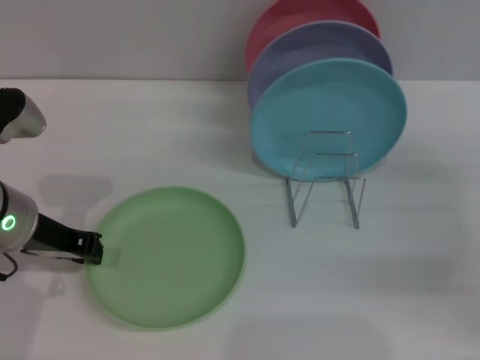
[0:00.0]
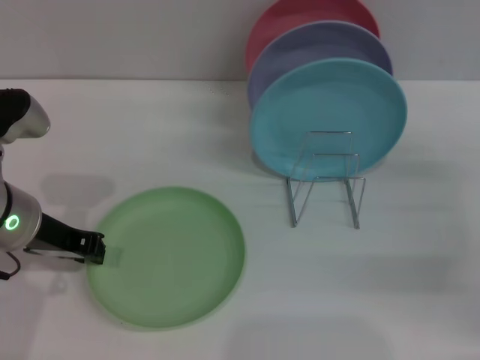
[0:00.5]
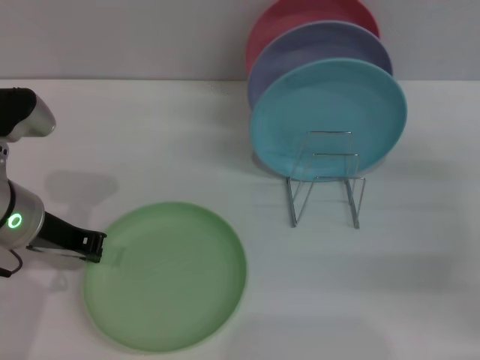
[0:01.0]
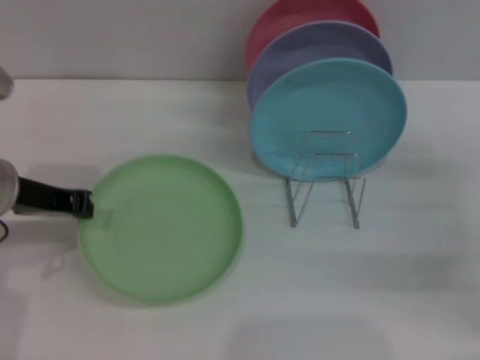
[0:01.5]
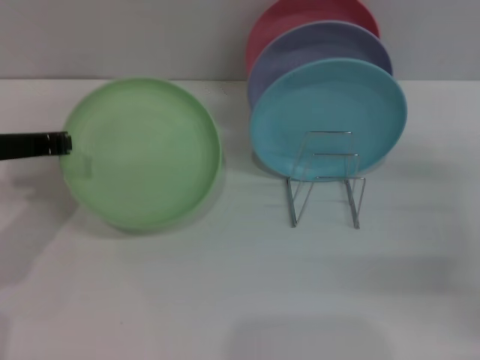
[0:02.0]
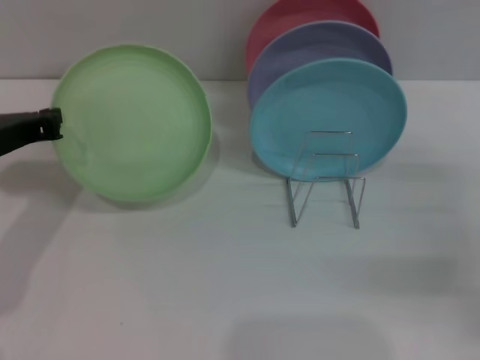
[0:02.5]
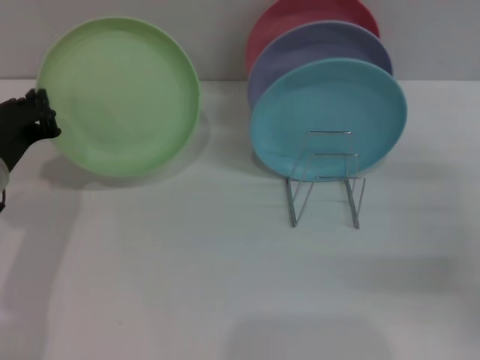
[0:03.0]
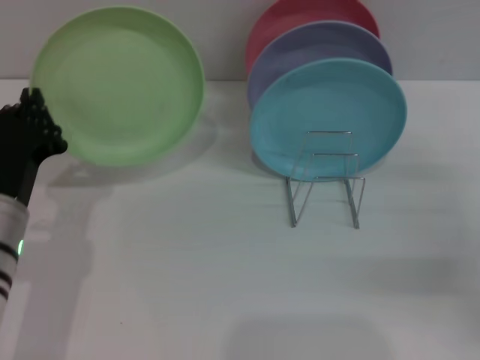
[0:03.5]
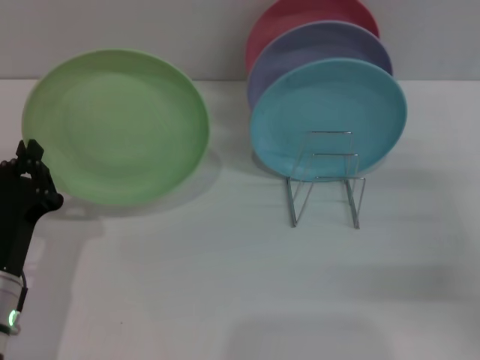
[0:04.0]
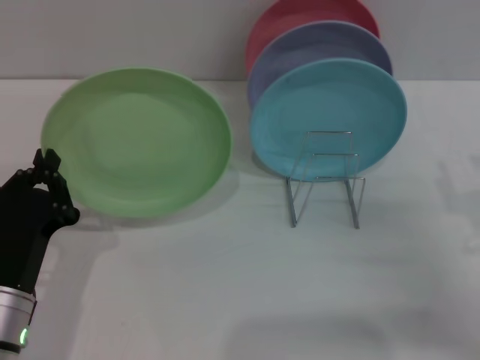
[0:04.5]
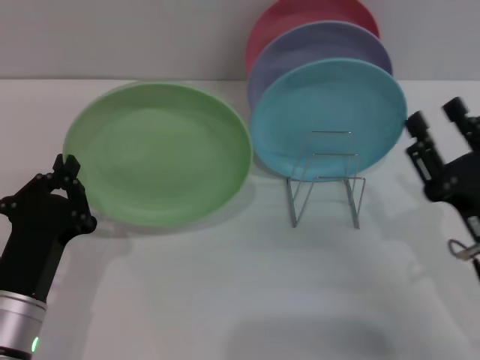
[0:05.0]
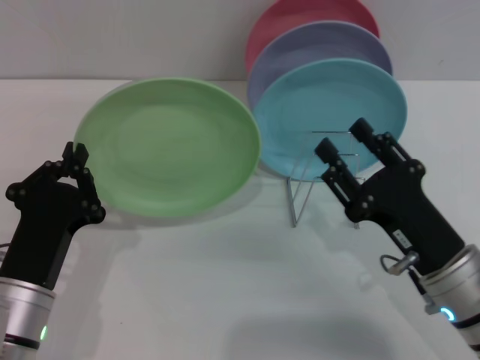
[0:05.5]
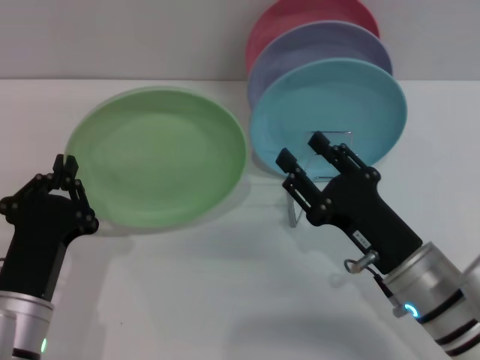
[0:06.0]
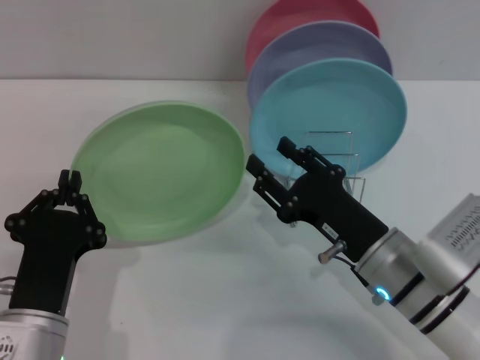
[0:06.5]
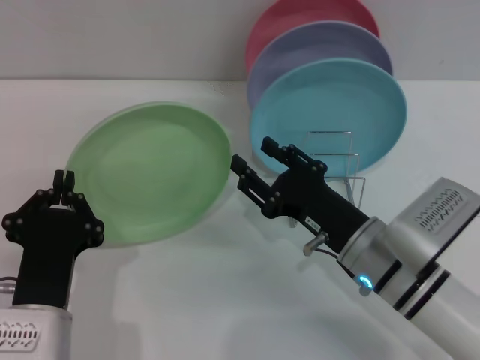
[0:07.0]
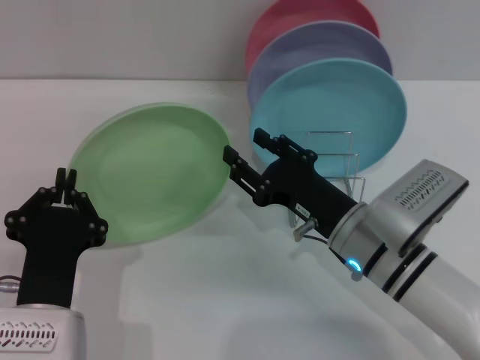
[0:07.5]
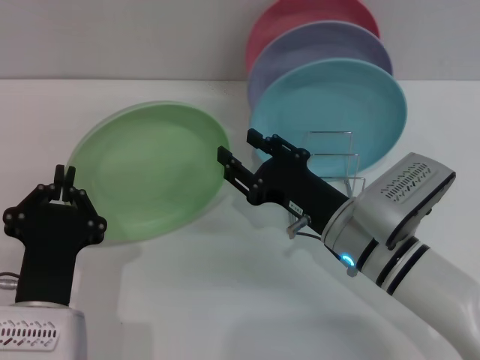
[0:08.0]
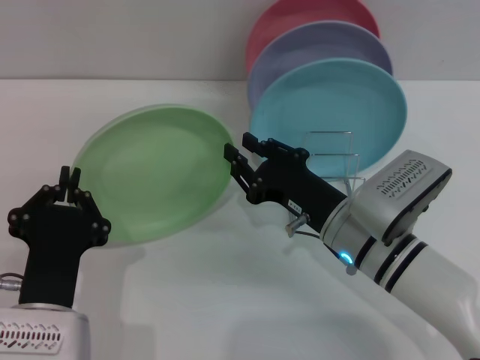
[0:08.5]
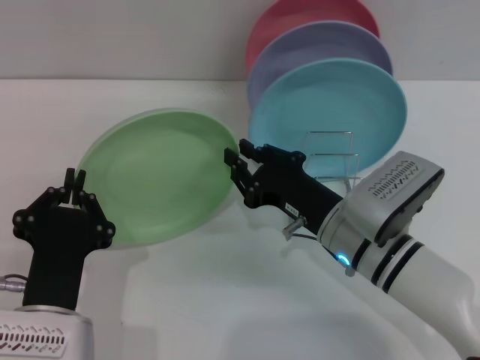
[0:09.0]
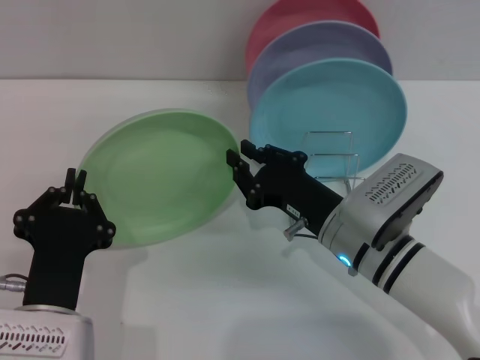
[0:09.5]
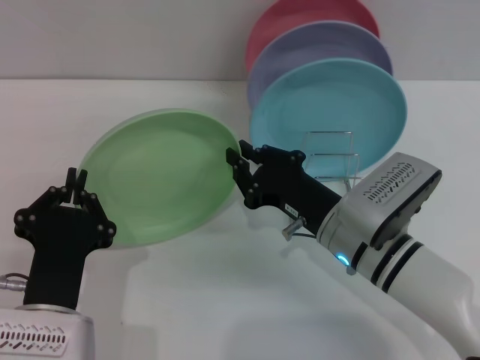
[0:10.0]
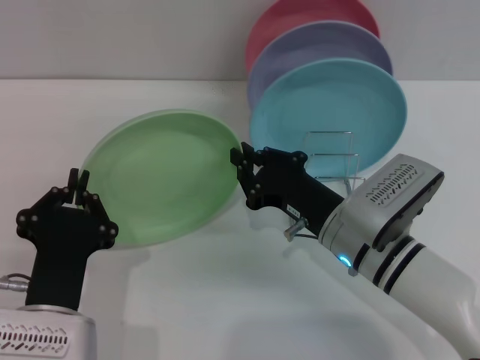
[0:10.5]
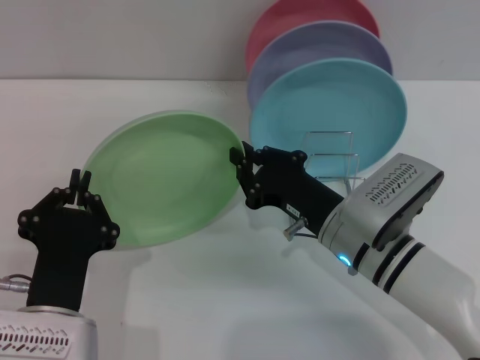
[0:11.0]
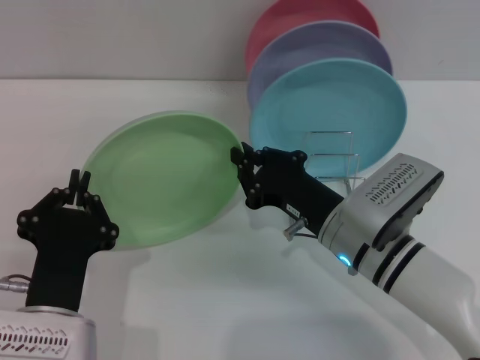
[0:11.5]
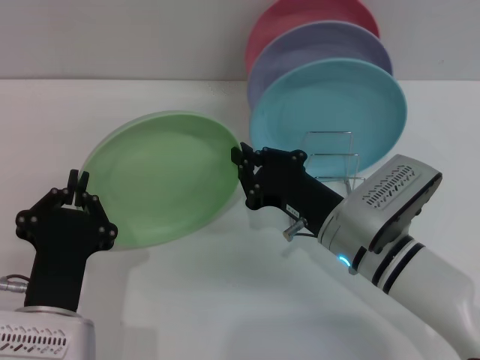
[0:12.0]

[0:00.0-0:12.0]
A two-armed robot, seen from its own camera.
Task of the whole recording: Grip the plate with one hand, pass it to the other, then set it on the shelf.
2.0 to 4.0 s: The left gripper is displaced downward and backward by about 15 cm.
4.0 to 6.0 s: The right gripper goes about 15 cm to the left.
6.0 to 8.0 s: The right gripper goes about 5 cm forward.
8.0 to 10.0 s: The right gripper closes its fingers.
10.0 to 12.0 s: The two grippers keep their place.

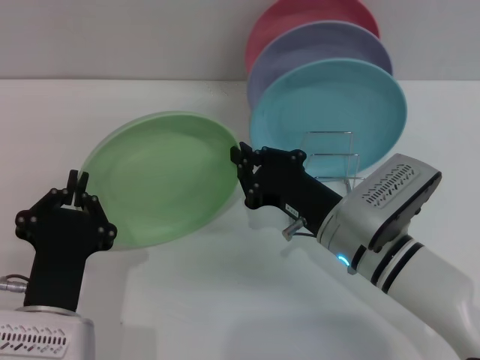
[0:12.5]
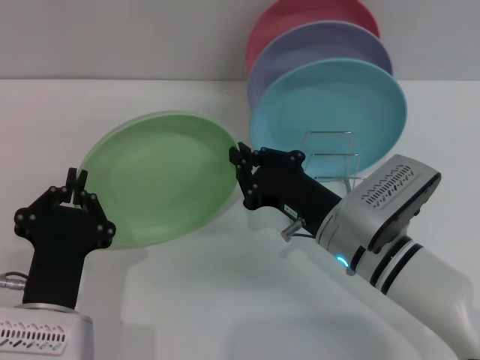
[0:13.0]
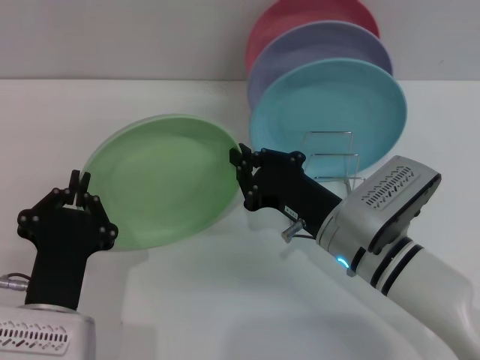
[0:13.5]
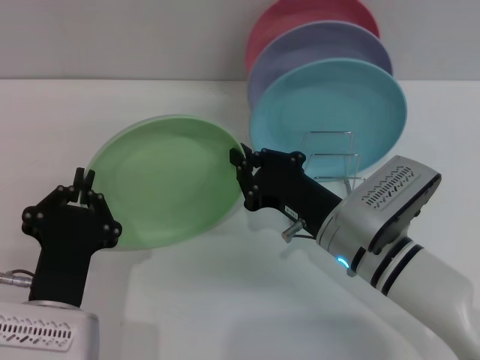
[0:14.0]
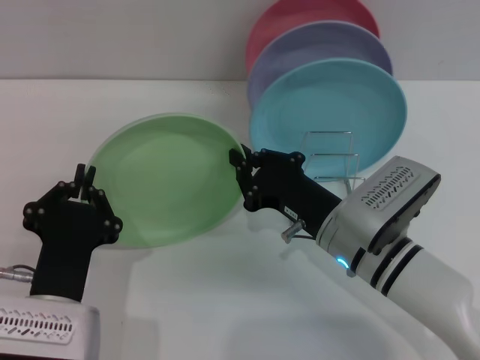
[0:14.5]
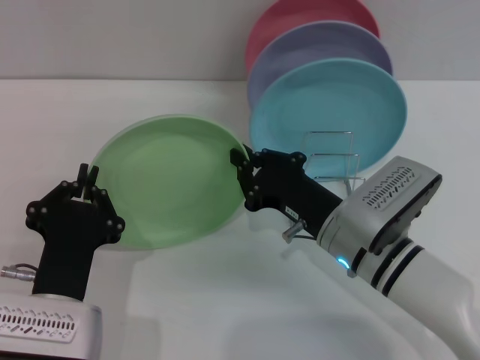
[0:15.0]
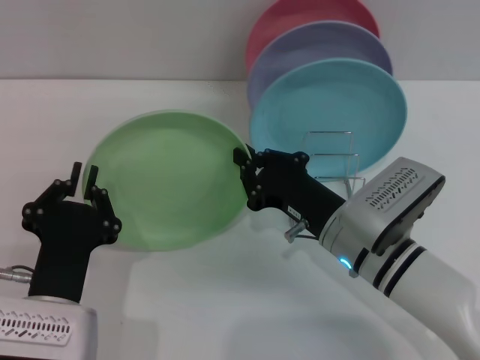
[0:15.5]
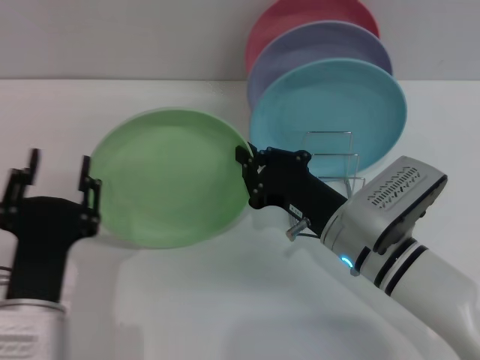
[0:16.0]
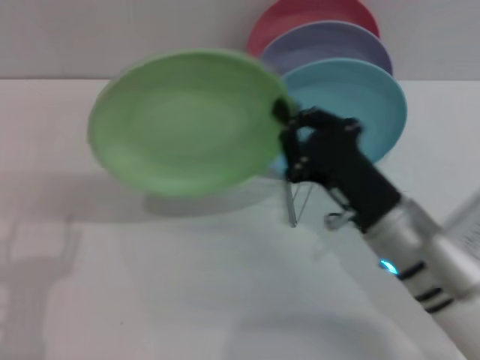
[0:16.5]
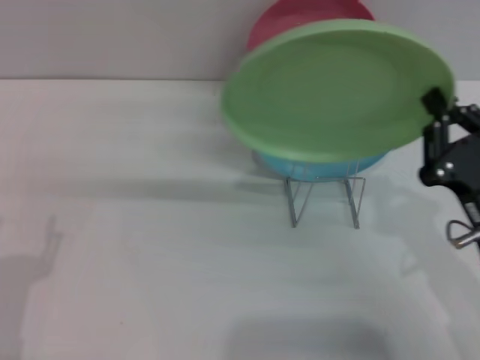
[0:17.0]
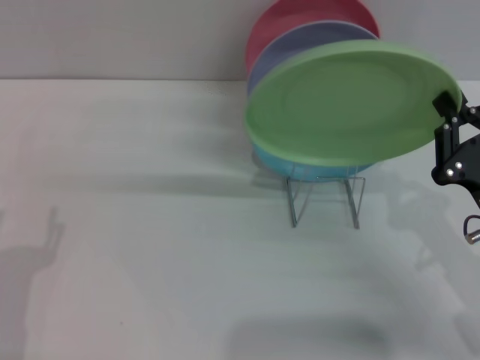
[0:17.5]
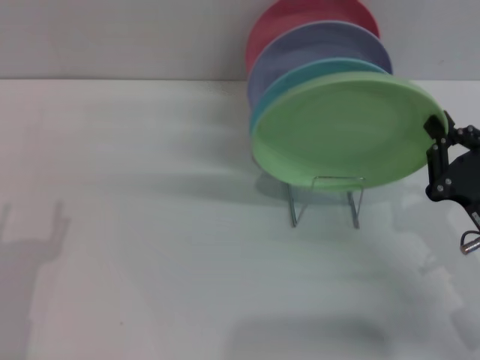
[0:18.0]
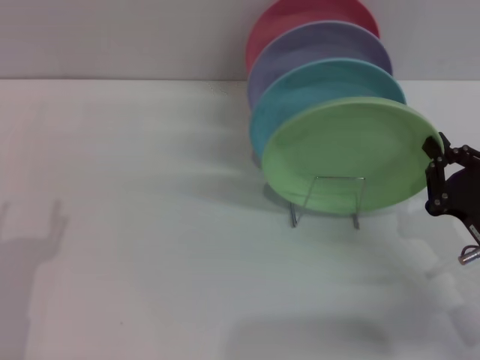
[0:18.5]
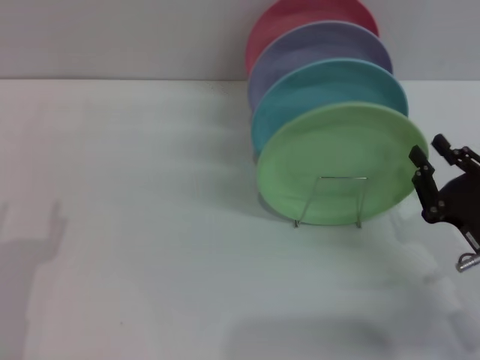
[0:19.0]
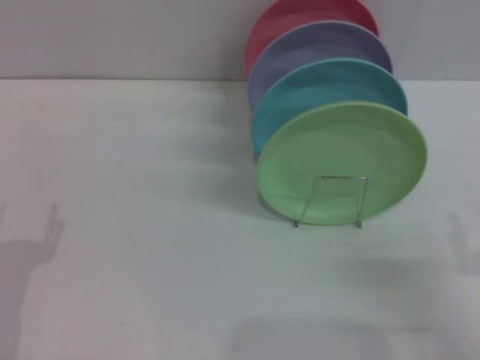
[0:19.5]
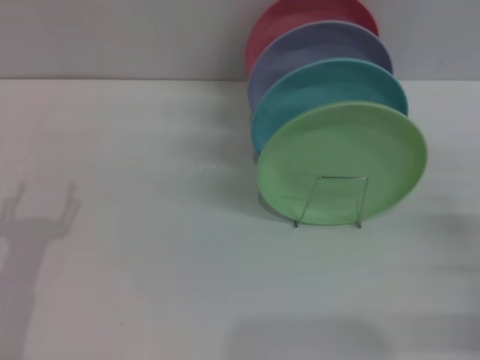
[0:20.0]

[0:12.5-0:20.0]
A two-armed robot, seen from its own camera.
Task of the whole recording: Grip the plate with one hand, pass it to the other, then set it on the shelf.
Step, 12.5 to 16.0 s: Pass the plate from the left gripper to the right gripper.
Step, 16.5 to 19.0 s: Place the plate on the shelf with the right gripper.
12.5 to 14.5 s: Neither gripper changes place.
14.5 to 16.5 s: The left gripper moves to the left, about 5 cm, and opens up.
16.5 to 18.0 s: The right gripper shifts some 10 cm to the right.
18.0 to 20.0 s: The right gripper moves to the right, some 10 cm, and opens.

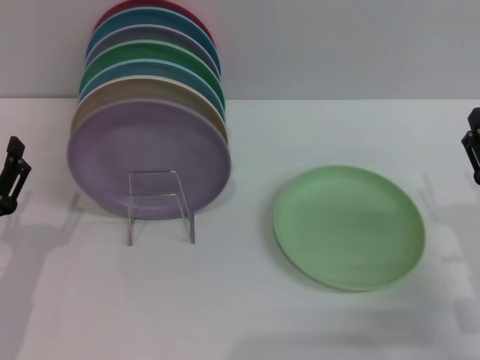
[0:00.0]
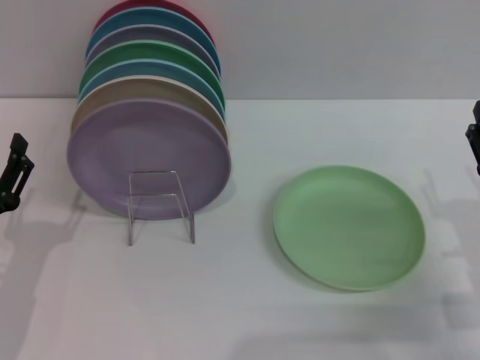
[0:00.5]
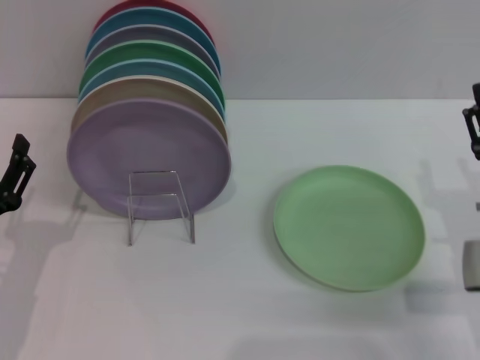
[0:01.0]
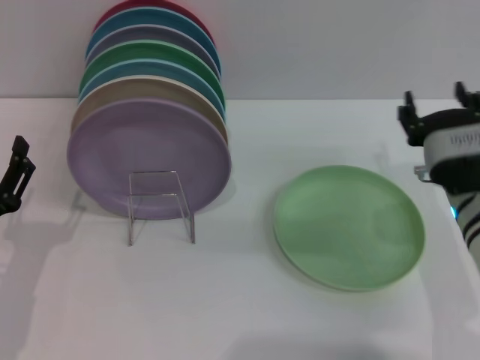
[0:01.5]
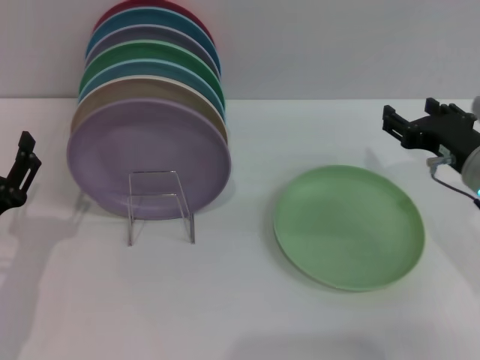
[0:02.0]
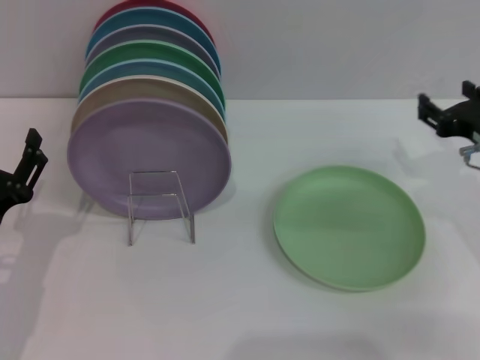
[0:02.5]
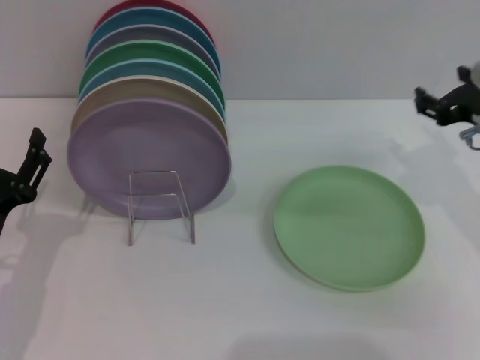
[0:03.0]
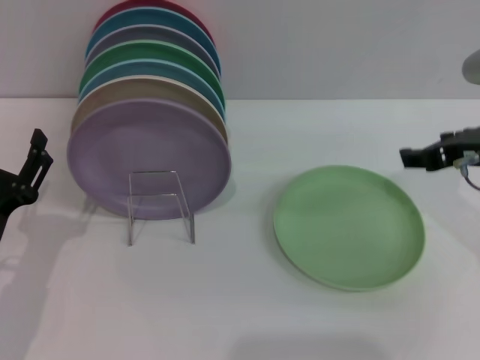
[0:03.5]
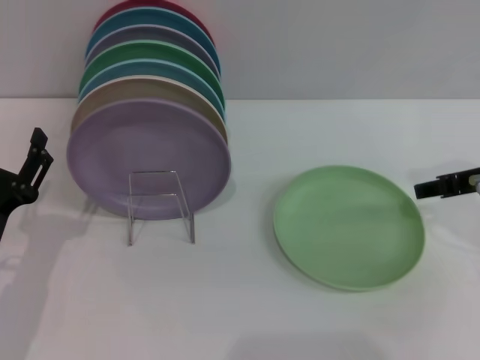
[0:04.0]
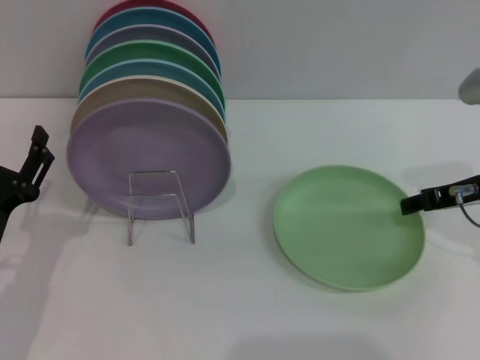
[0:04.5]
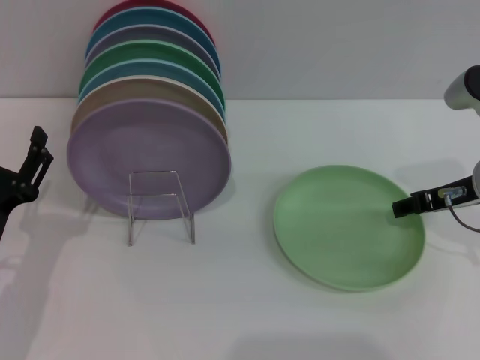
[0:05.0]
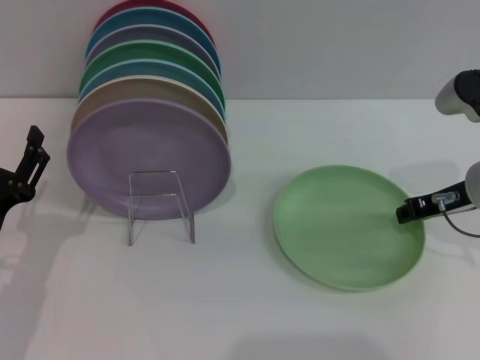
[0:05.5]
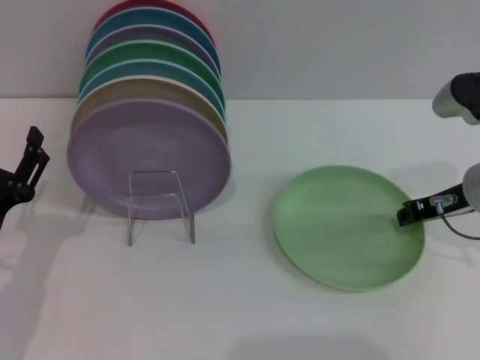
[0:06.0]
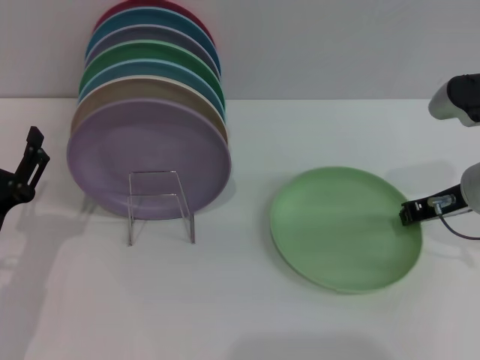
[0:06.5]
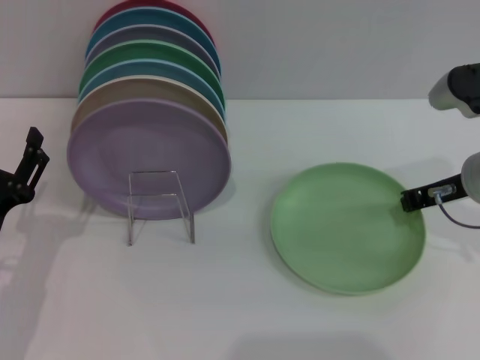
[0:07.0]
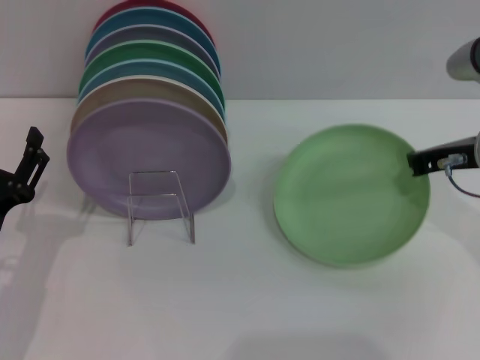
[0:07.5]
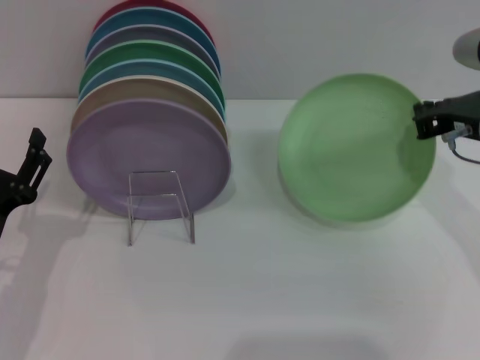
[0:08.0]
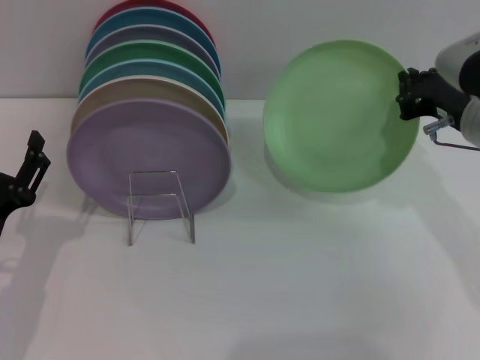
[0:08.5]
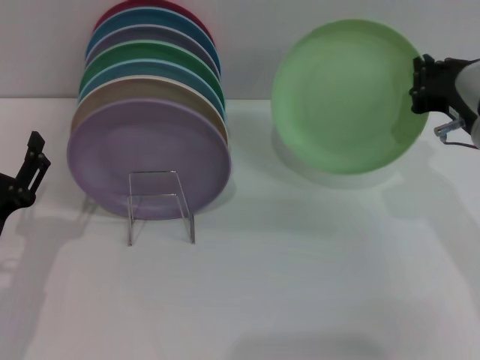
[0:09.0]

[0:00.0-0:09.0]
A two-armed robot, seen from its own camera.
Task of the whole recording: Grip the plate with one hand, pass it to the other, then set it on the shelf.
Step, 0.0 to 7.5 s: Pick up the plate with the right gripper.
0.0 to 2.0 s: The right gripper heads forward and upward, covering approximately 10 cm.
4.5 to 7.0 s: The right gripper closes its fingers.
